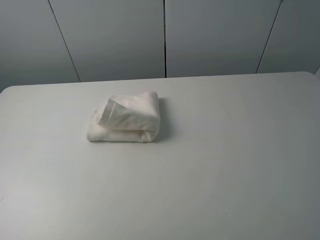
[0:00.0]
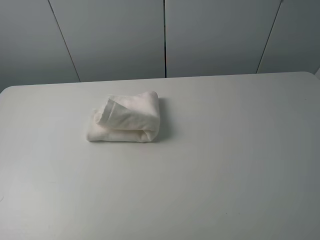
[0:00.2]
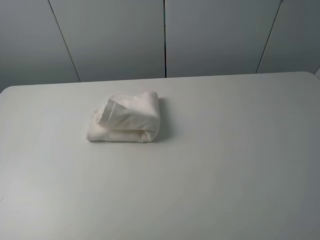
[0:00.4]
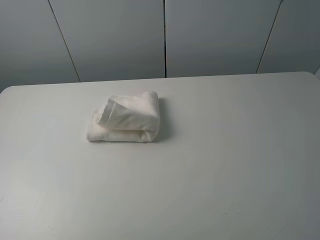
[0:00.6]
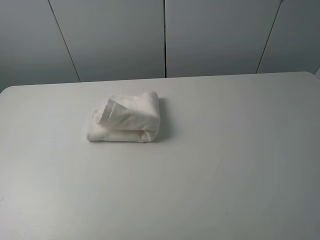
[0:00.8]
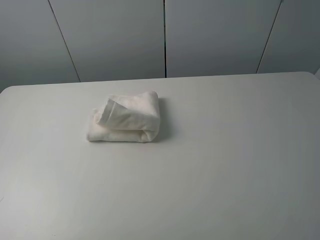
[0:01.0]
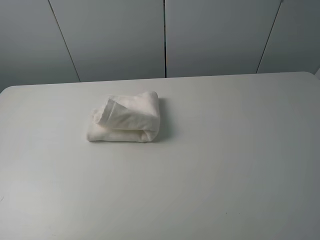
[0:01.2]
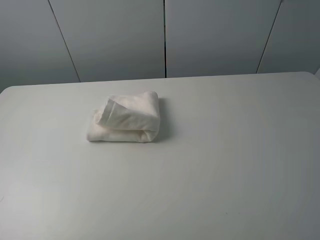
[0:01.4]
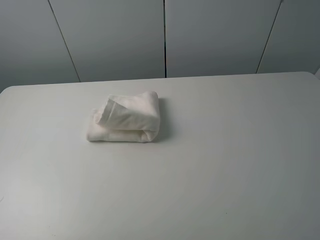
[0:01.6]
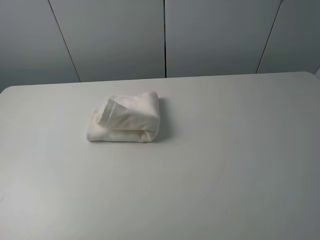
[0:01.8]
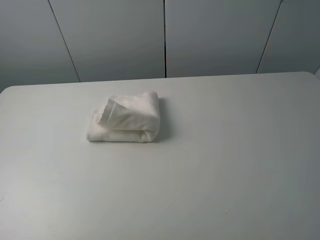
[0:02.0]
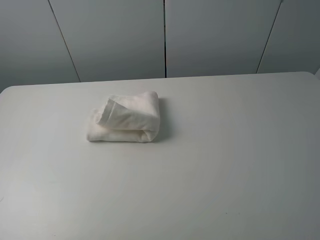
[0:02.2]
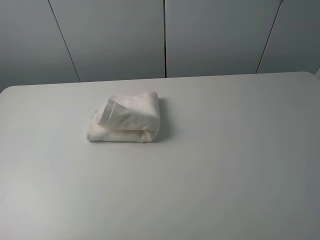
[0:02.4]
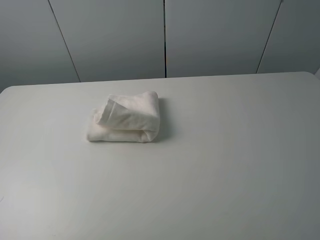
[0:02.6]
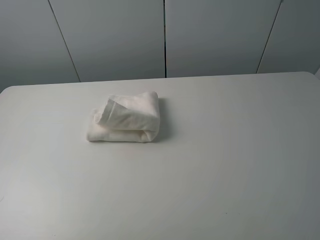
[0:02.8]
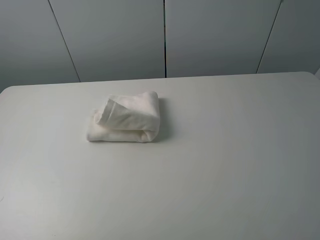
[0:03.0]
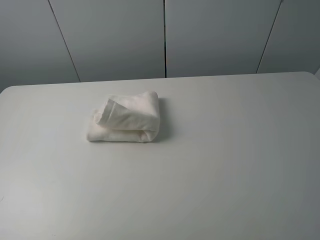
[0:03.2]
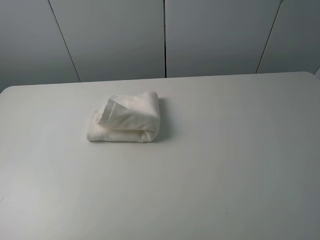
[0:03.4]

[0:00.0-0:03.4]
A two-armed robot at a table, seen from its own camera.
Task of the whole recording: fold the towels on the table.
0:01.6 to 0:03.4: Both grippers stay put.
